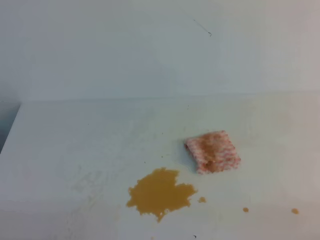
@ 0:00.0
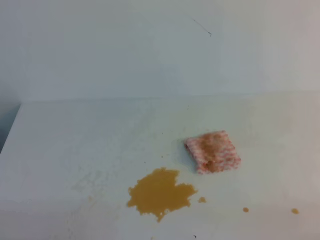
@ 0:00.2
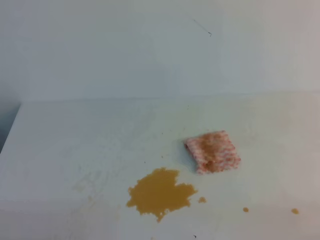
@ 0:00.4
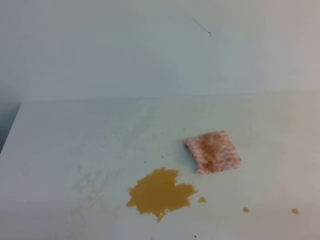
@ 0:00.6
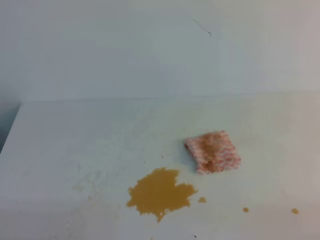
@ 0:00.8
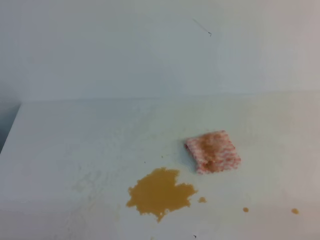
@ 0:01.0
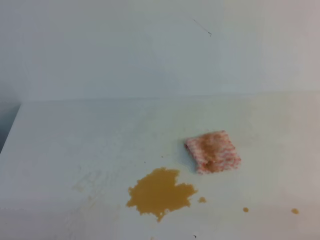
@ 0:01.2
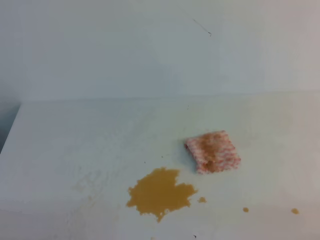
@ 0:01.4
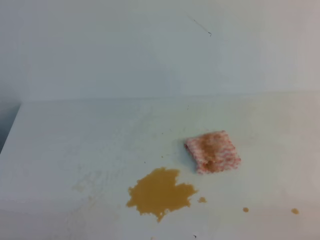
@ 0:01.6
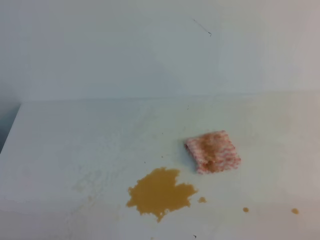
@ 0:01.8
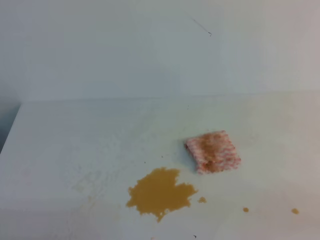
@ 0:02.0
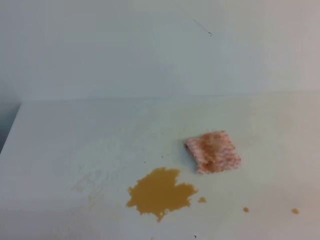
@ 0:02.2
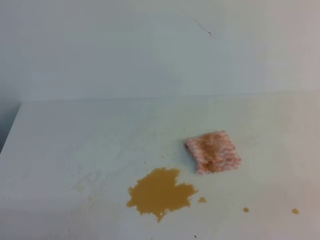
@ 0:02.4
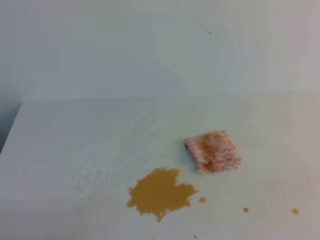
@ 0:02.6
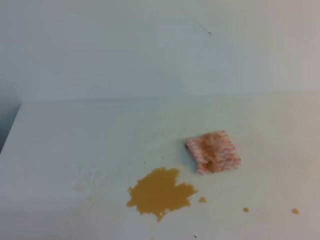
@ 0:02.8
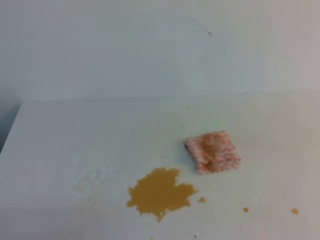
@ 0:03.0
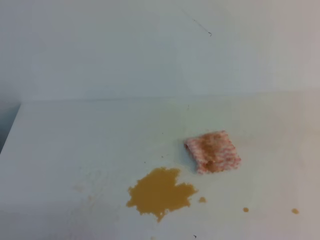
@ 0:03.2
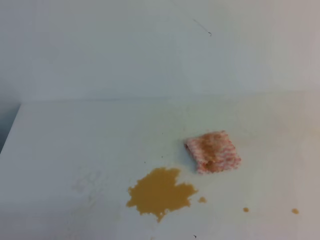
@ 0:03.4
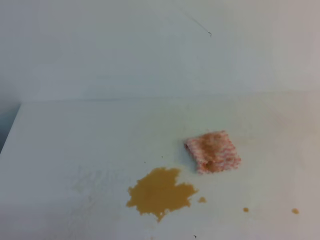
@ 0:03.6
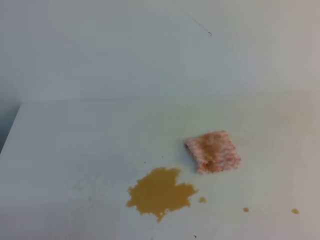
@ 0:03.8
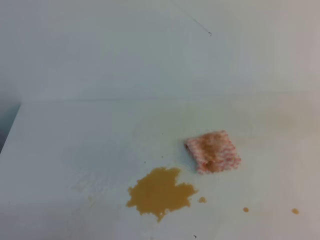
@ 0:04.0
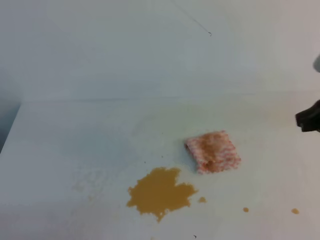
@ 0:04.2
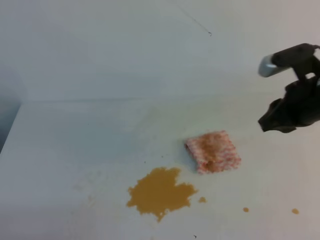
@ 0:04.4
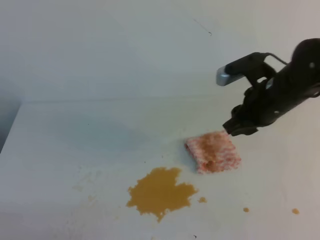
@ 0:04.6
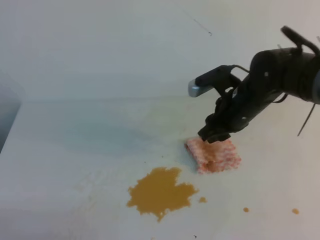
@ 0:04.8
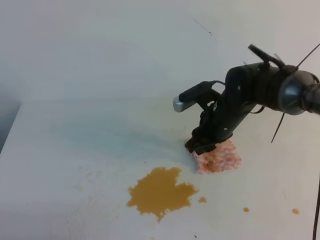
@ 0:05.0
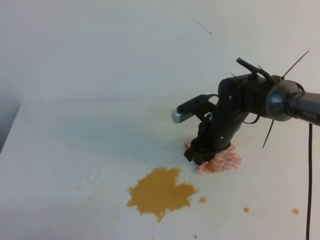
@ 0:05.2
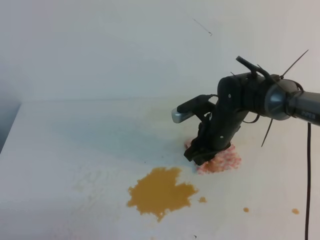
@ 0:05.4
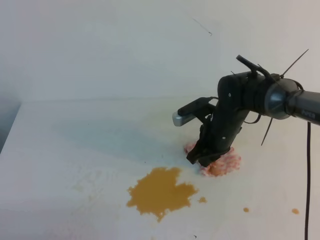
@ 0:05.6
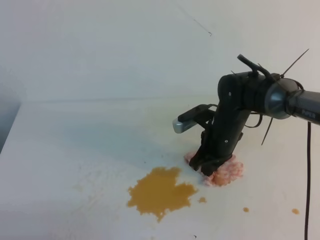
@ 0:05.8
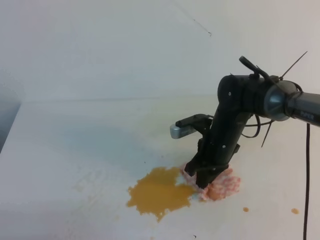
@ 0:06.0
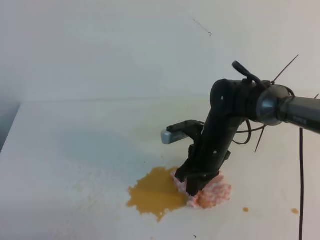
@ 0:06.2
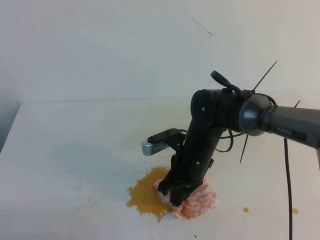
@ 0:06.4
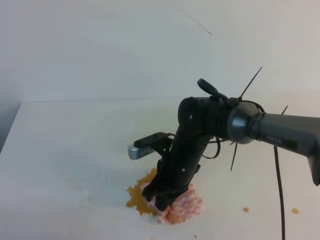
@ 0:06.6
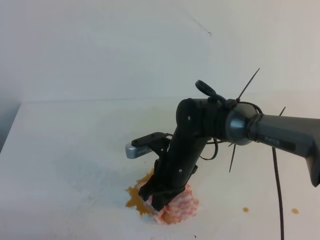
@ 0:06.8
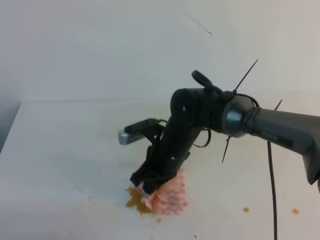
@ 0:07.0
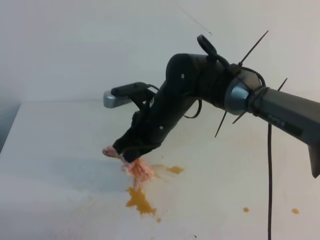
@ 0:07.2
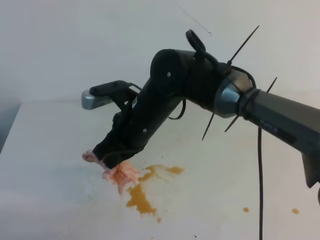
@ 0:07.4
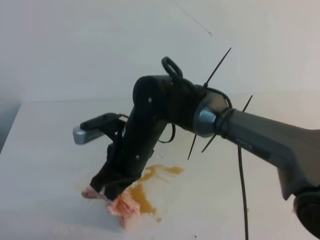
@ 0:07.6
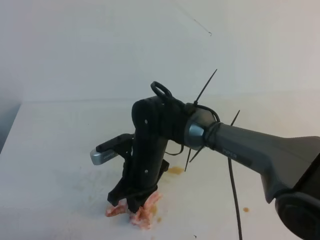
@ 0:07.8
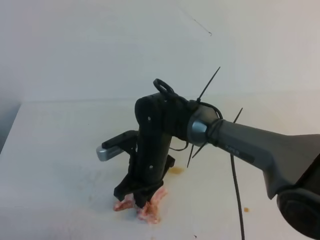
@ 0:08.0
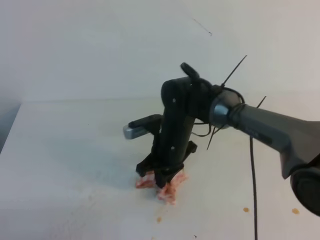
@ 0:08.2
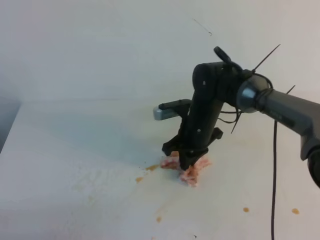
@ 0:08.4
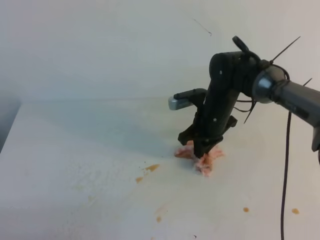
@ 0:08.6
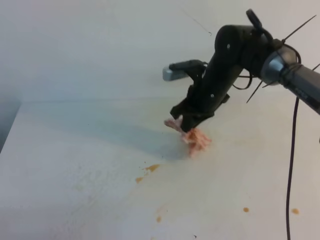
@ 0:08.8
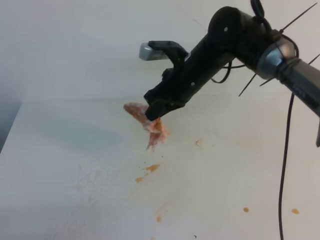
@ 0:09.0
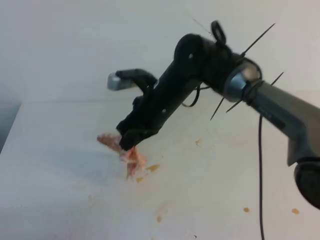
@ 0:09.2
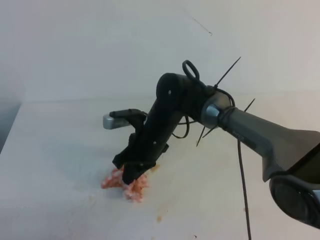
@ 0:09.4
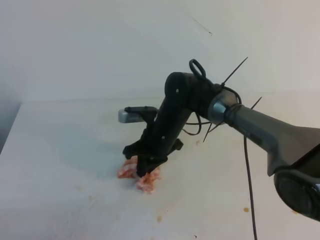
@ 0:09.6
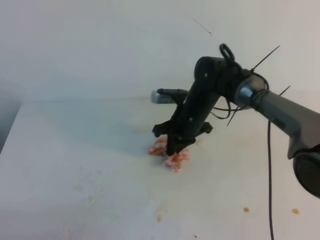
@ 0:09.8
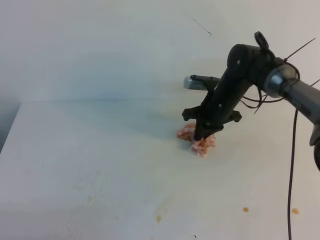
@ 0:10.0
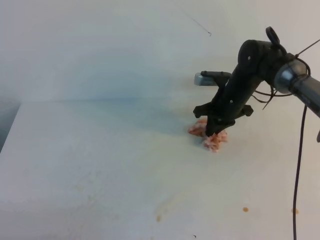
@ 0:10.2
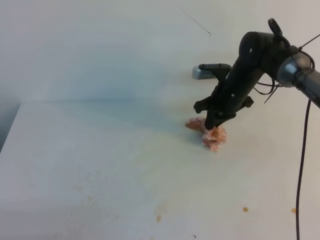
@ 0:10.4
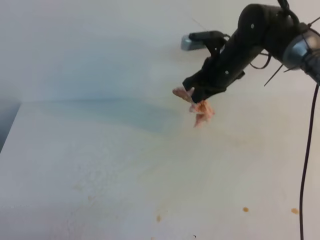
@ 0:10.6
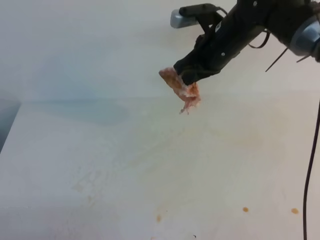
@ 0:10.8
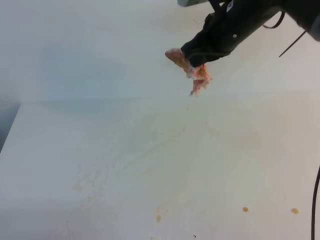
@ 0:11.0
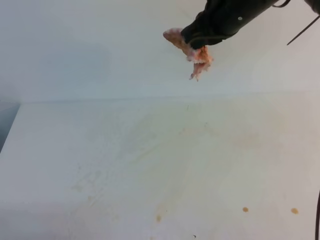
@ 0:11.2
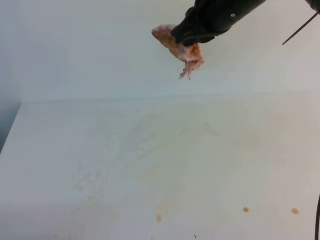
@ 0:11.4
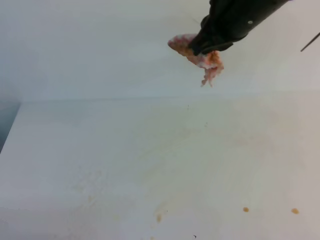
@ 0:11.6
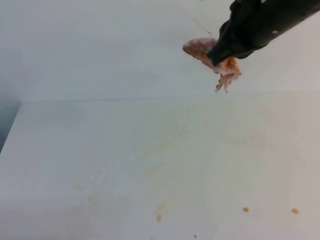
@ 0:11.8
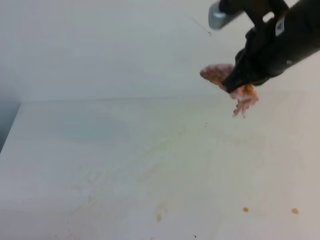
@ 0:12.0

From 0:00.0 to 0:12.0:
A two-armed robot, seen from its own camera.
From 0:00.0 to 0:01.6: Neither gripper changes place.
From 0:03.0 to 0:04.4: The right gripper moves forward and to the left, some 25 cm, and opens up.
From 0:04.4 to 0:06.0: The right gripper shifts roughly 20 cm downward, to the left and forward, and closes.
From 0:06.0 to 0:07.6: The right gripper heads to the left and upward, covering some 15 cm.
From 0:07.6 to 0:09.0: The right gripper shifts some 15 cm forward and to the right.
From 0:09.0 to 0:10.4: The right gripper is displaced to the right and forward by approximately 10 cm.
From 0:10.4 to 0:12.0: The right gripper moves upward and backward, about 25 cm.

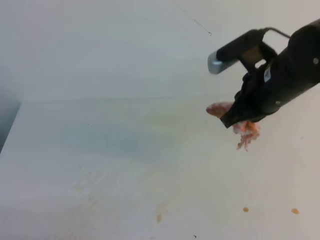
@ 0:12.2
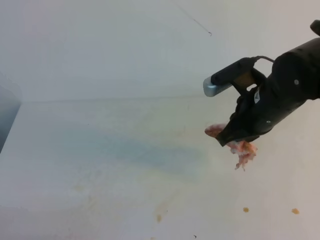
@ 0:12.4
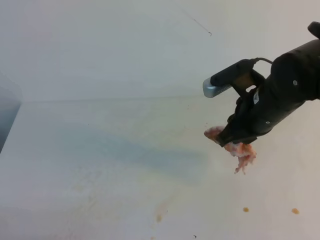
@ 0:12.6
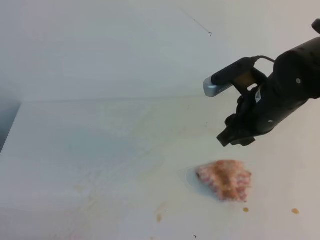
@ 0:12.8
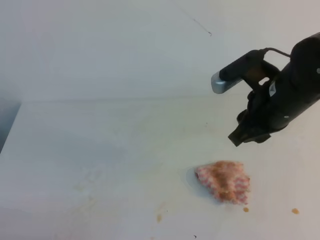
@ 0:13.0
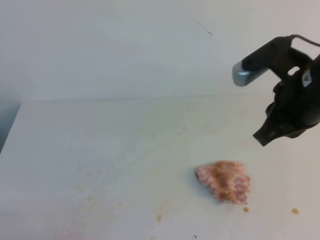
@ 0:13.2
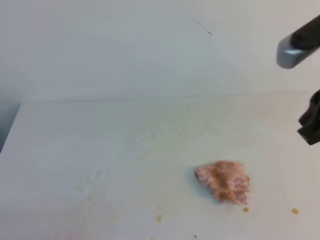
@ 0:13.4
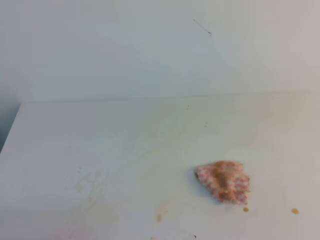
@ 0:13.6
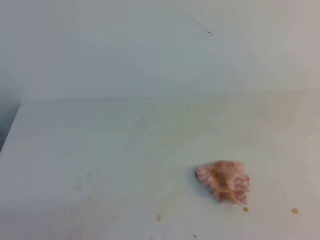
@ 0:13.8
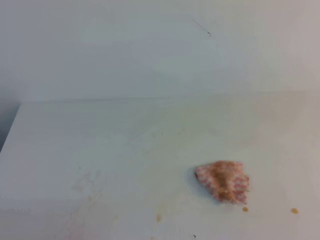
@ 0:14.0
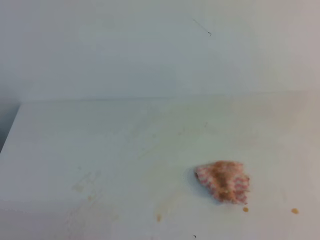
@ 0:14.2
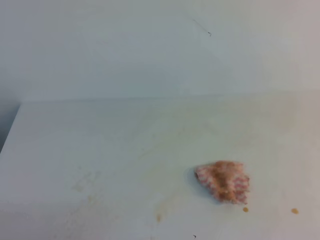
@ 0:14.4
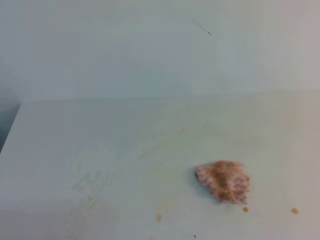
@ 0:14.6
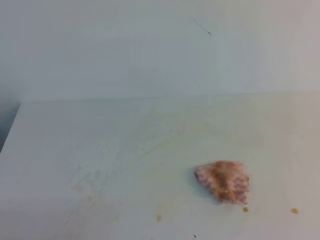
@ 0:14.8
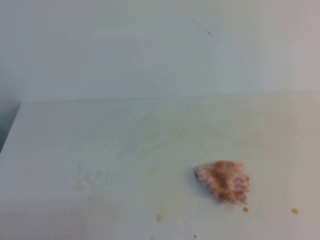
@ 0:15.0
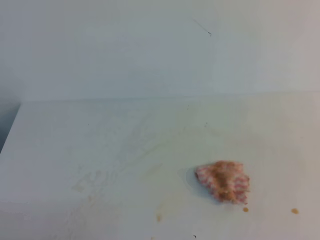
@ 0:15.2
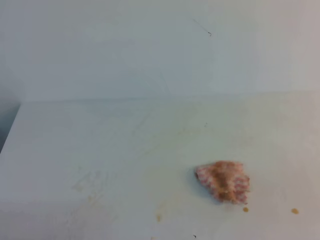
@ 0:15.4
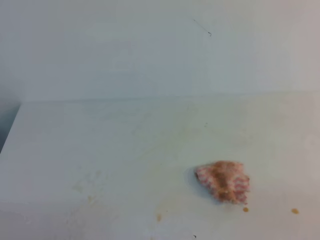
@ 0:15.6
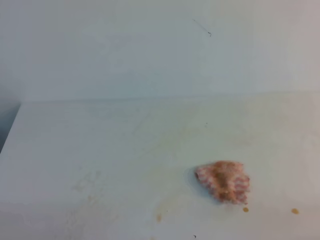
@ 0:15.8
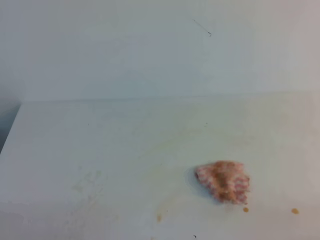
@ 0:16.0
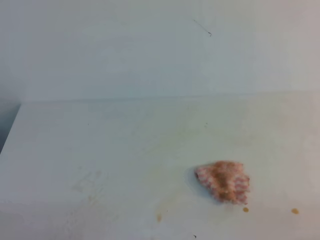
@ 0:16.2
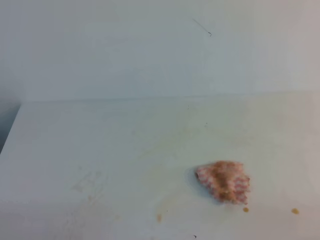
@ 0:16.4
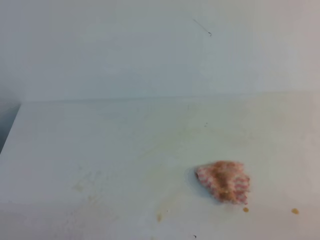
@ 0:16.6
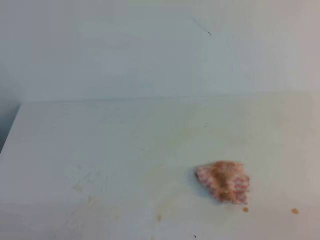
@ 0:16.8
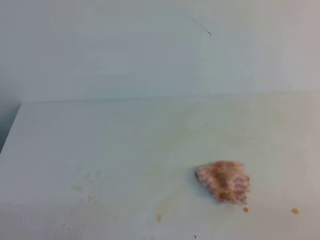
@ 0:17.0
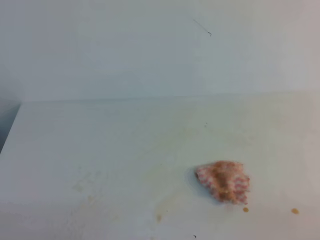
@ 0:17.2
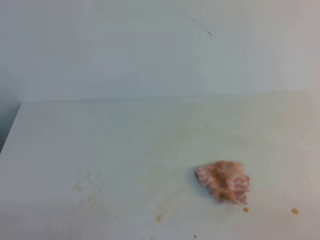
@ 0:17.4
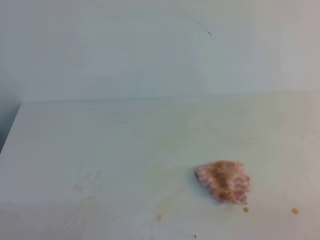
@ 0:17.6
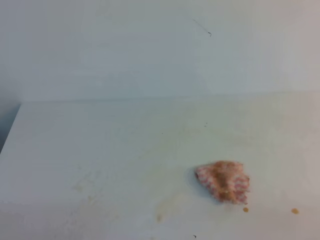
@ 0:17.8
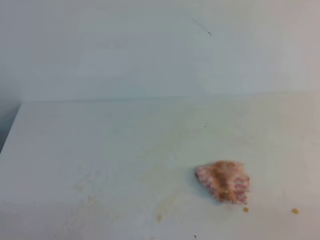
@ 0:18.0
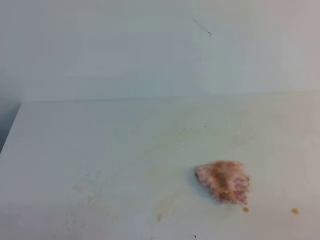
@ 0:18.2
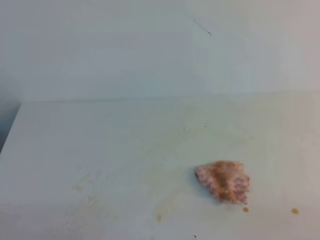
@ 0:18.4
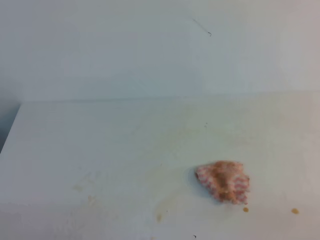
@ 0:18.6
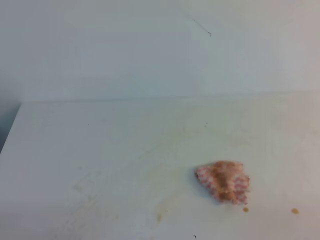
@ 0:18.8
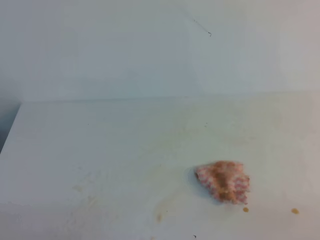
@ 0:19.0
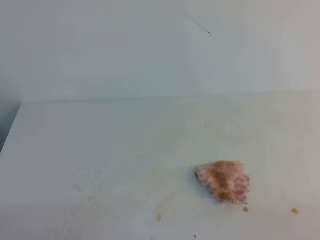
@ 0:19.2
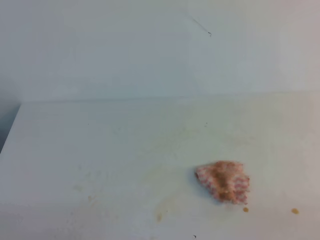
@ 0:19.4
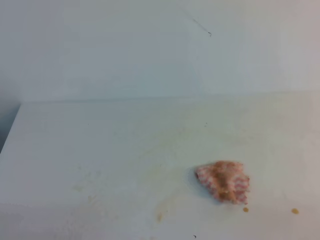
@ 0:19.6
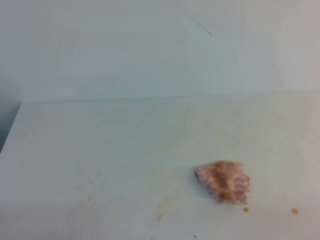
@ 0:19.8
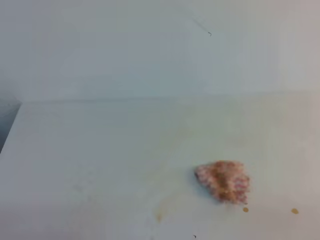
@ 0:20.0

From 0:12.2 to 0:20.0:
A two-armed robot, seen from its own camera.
From 0:12.2 to 0:13.8: The right gripper shifts approximately 20 cm backward, upward and to the right, and opens and closes again.
From 0:16.8 to 0:20.0: Both grippers stay put.
